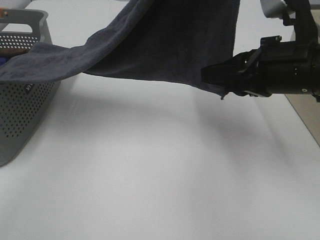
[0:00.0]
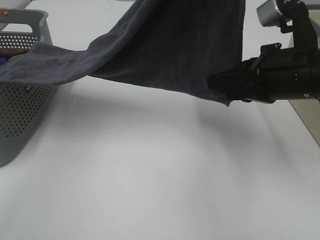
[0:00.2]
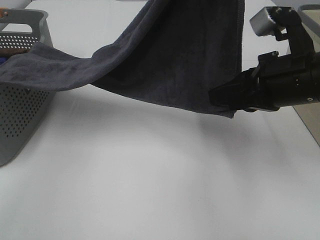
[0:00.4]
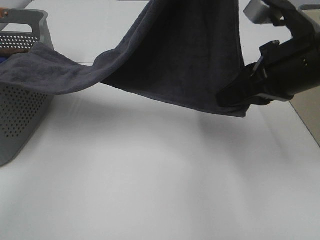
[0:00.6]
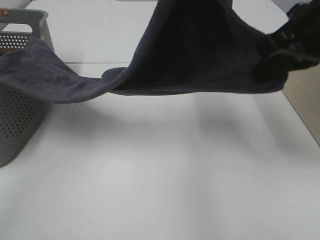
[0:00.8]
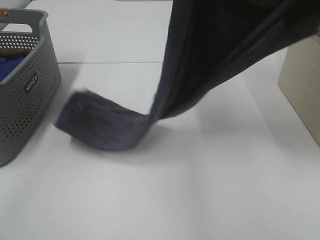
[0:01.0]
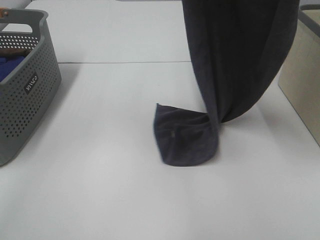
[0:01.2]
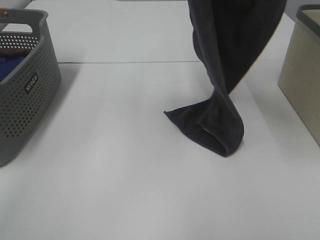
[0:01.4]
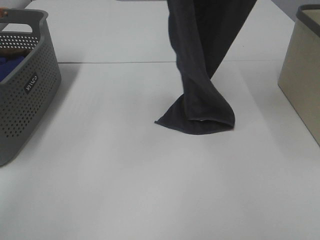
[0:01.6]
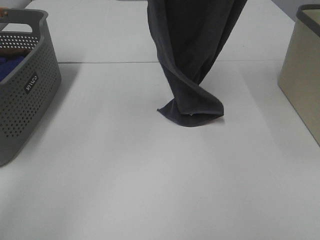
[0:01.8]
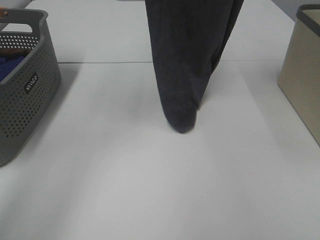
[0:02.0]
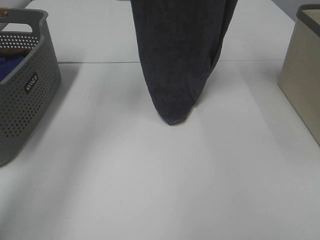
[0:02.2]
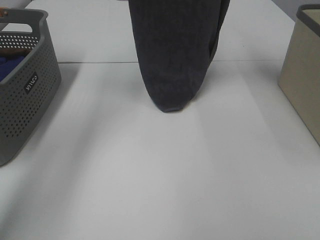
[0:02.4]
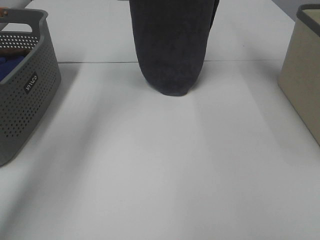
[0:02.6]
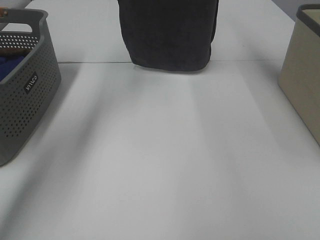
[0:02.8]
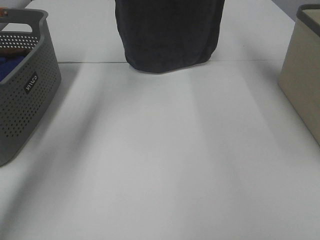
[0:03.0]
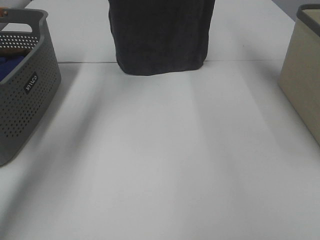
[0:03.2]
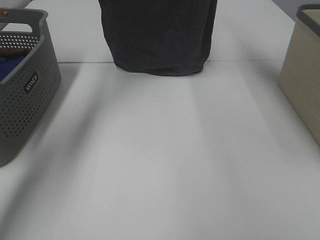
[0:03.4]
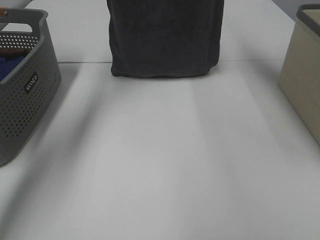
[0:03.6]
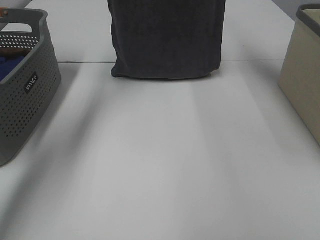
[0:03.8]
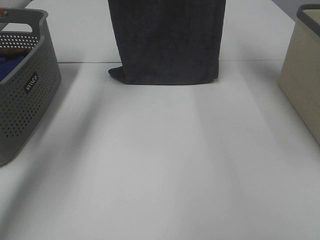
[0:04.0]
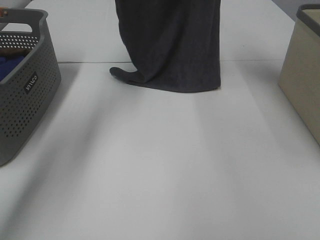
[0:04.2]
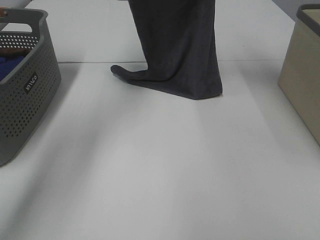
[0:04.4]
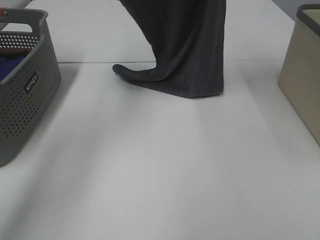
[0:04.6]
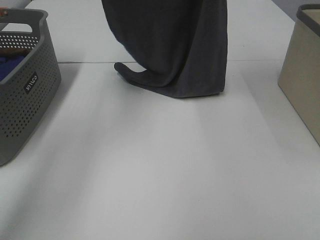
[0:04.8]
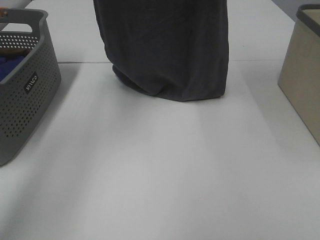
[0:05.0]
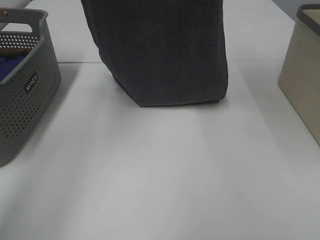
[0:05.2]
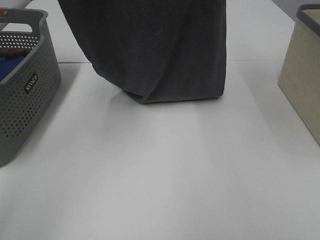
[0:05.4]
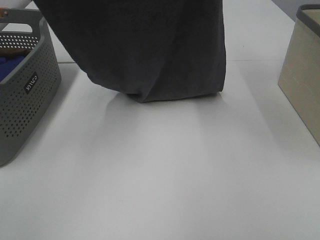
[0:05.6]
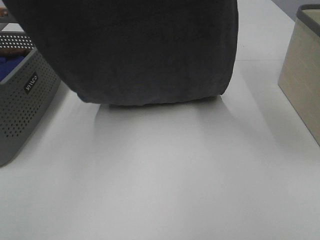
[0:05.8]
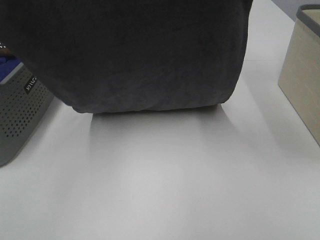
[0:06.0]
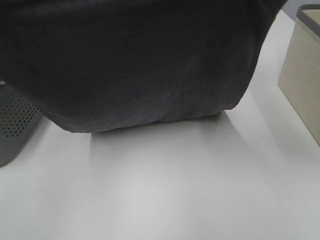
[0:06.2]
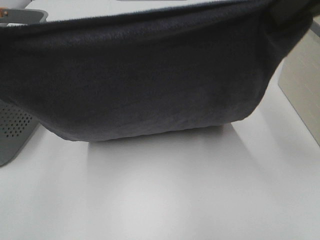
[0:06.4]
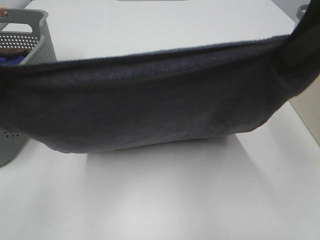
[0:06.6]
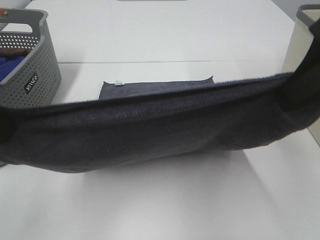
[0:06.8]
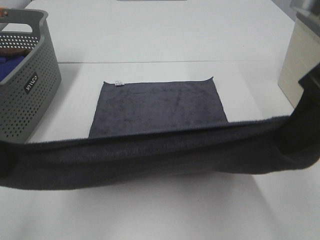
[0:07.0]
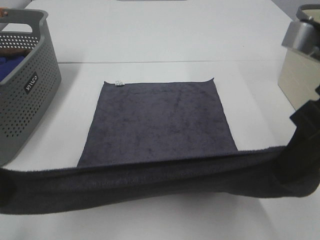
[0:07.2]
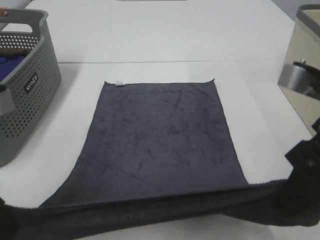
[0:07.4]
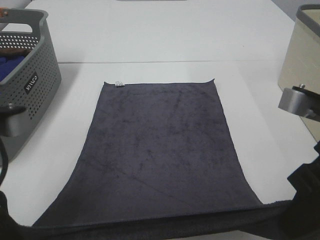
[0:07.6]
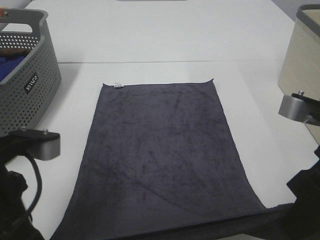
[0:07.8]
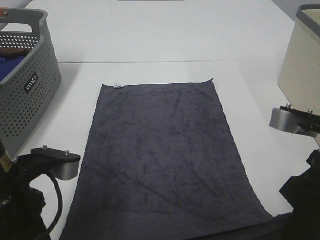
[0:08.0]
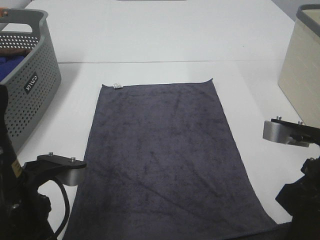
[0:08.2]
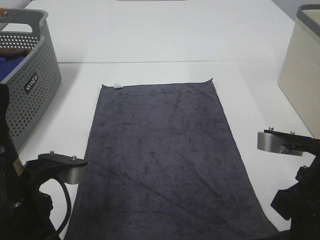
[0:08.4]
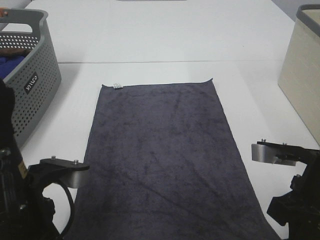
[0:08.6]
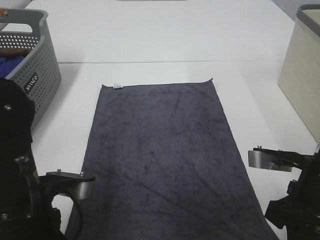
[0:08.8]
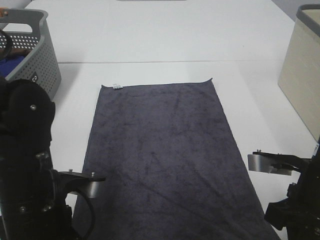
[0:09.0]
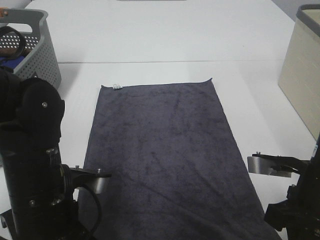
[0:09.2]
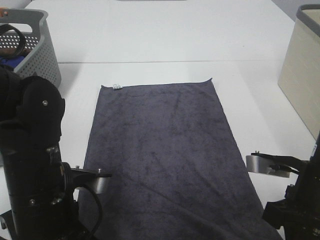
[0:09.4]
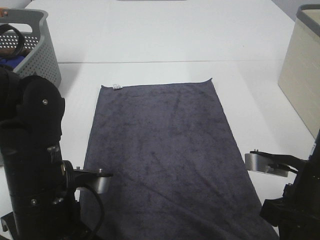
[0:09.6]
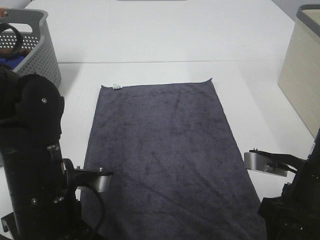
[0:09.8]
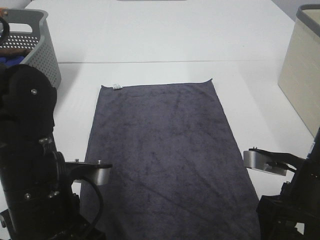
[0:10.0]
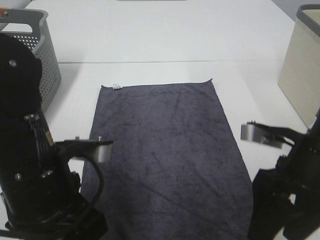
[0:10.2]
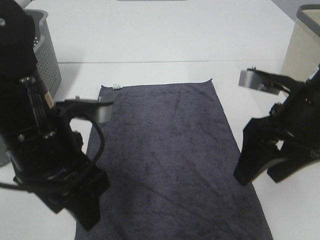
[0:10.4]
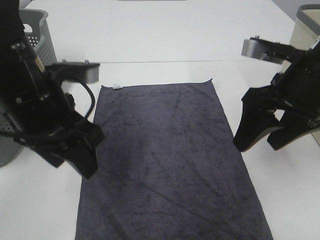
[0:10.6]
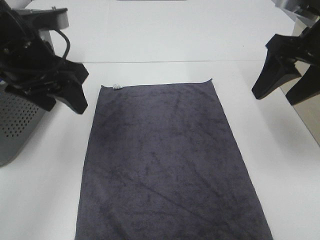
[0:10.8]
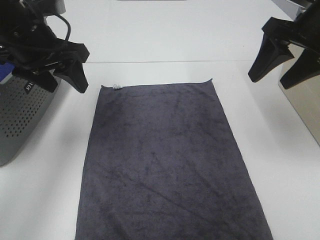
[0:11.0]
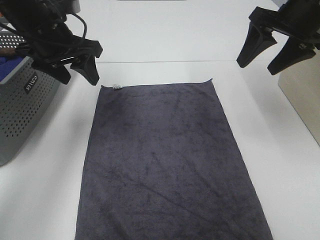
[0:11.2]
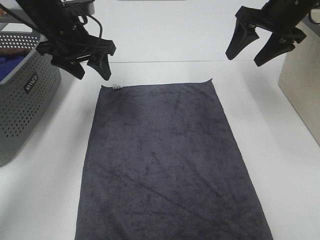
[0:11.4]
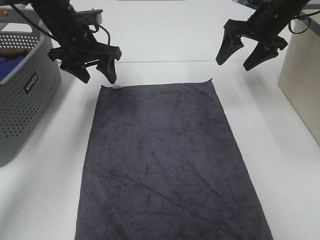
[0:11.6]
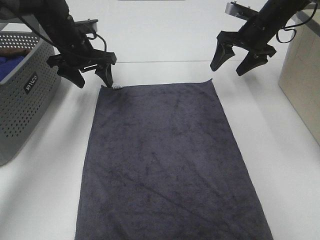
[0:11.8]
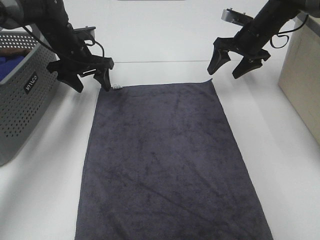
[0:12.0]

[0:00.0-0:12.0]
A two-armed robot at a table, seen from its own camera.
Task of the whole recording: Remove the towel and place it.
Step, 0.8 to 5.8 s: Left hand: spread the grey towel flat on the table.
Step, 0.8 to 5.8 s: Right hand: spread the grey towel flat on the table.
Step, 6.0 to 12.0 s: Left hand:adjust the gray towel.
Step, 6.0 to 12.0 s: Right hand:adjust the gray towel.
0.0 to 1.6 s: The left gripper is displaced forward and to the left by approximately 15 cm. Meanwhile the right gripper is displaced upward and forward by roughly 25 cm.
1.6 to 3.0 s: The left gripper moves forward and to the left, roughly 15 cm, while the right gripper shifts some 10 cm forward.
3.0 to 4.4 s: The left gripper is displaced downward by some 5 cm.
4.4 to 6.0 s: Both grippers travel together backward, some 25 cm.
6.0 to 7.6 s: The two grippers go some 20 cm downward and backward.
7.6 to 9.0 s: The right gripper goes some 10 cm downward; the left gripper goes approximately 10 cm downward and to the right.
9.0 to 10.4 s: The left gripper is displaced upward by roughly 10 cm, and opens, while the right gripper moves upward and forward, approximately 10 cm, and opens up.
10.4 to 12.0 s: Both grippers travel together forward, roughly 30 cm.

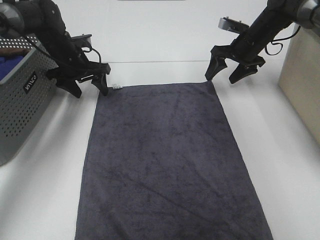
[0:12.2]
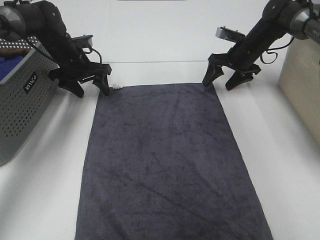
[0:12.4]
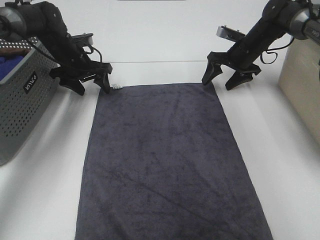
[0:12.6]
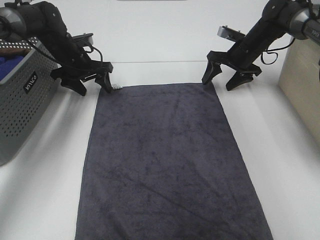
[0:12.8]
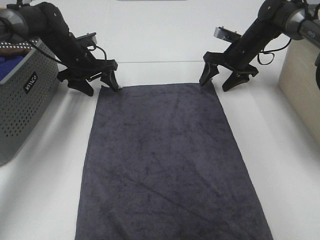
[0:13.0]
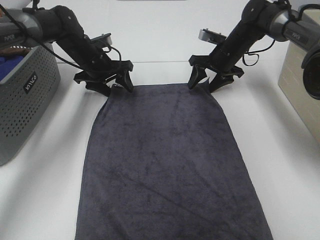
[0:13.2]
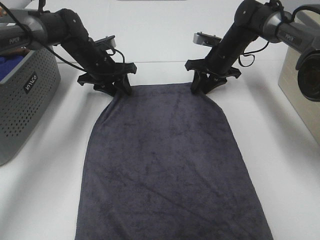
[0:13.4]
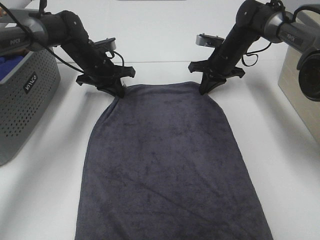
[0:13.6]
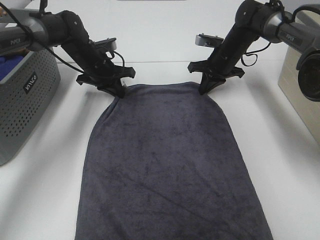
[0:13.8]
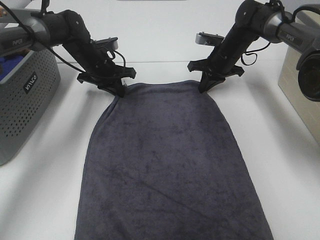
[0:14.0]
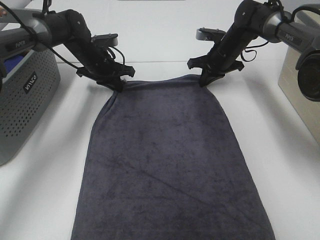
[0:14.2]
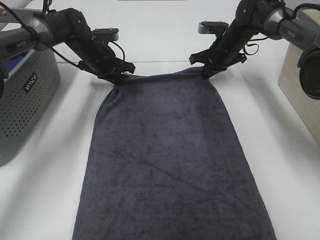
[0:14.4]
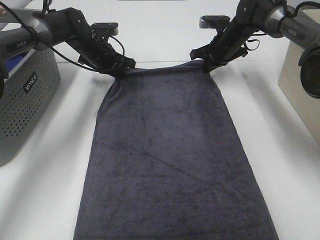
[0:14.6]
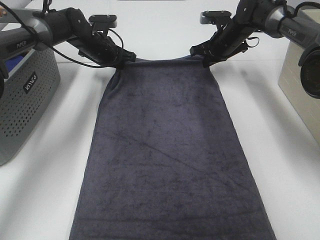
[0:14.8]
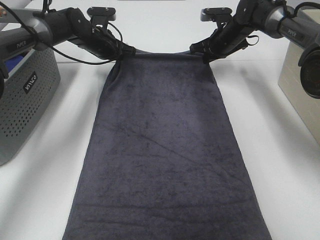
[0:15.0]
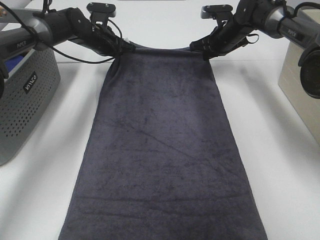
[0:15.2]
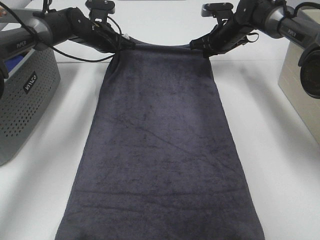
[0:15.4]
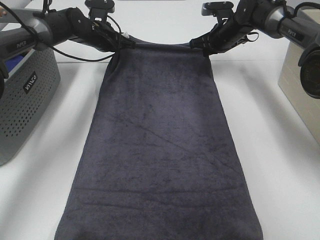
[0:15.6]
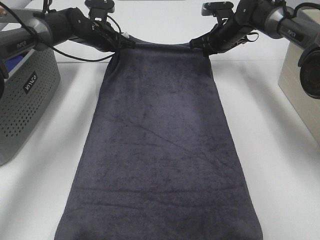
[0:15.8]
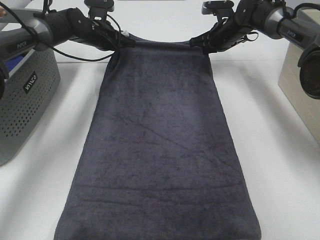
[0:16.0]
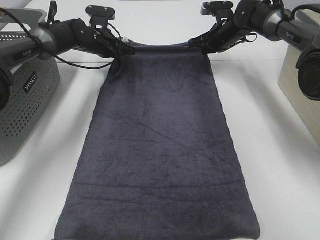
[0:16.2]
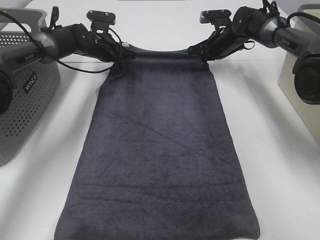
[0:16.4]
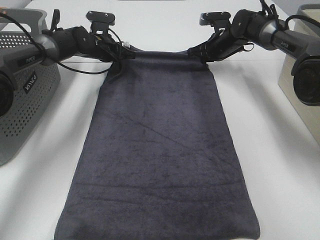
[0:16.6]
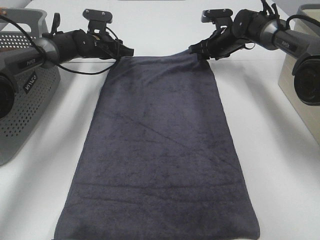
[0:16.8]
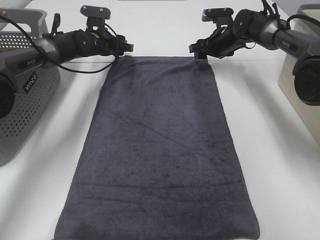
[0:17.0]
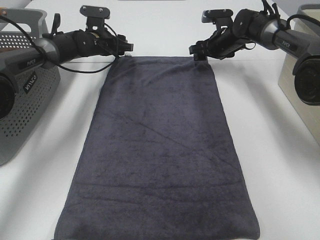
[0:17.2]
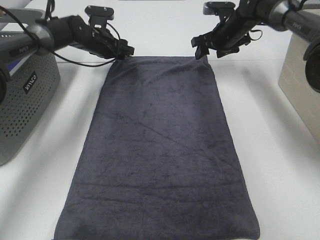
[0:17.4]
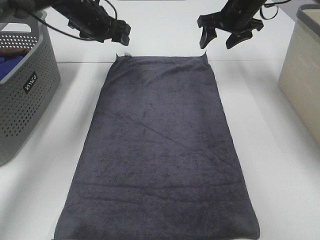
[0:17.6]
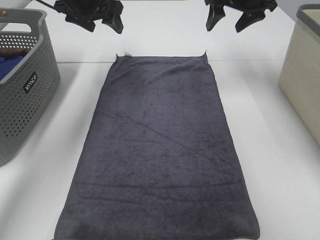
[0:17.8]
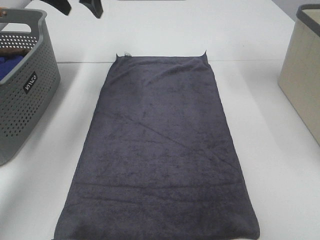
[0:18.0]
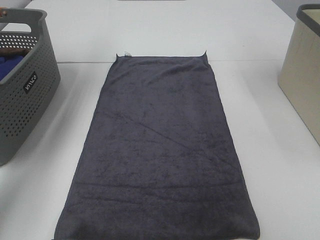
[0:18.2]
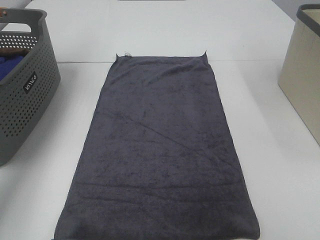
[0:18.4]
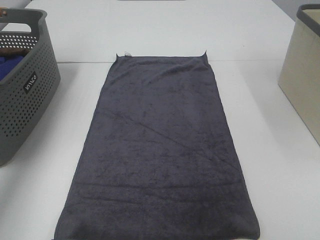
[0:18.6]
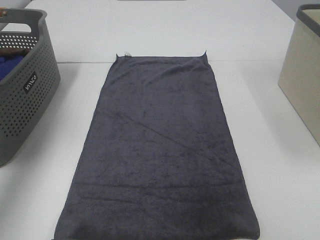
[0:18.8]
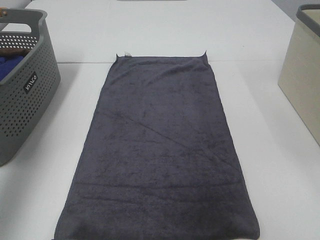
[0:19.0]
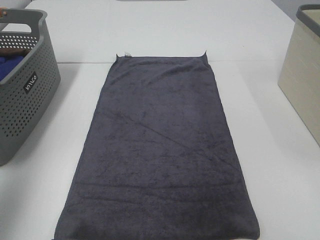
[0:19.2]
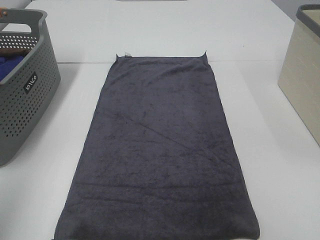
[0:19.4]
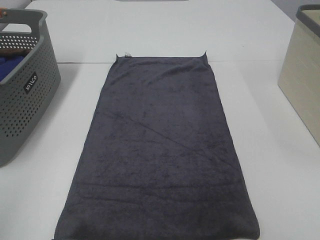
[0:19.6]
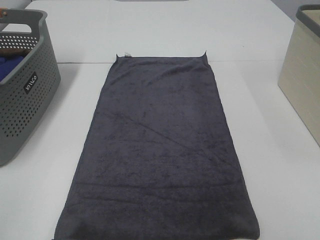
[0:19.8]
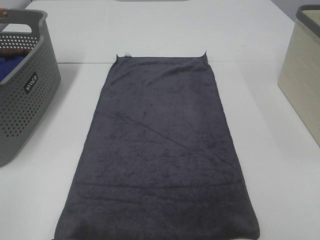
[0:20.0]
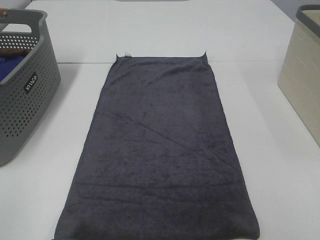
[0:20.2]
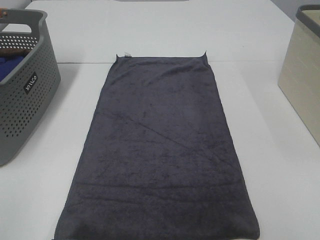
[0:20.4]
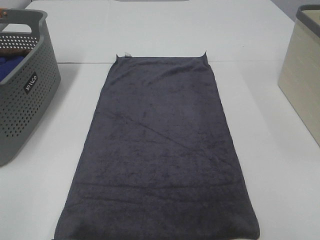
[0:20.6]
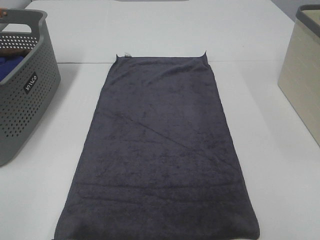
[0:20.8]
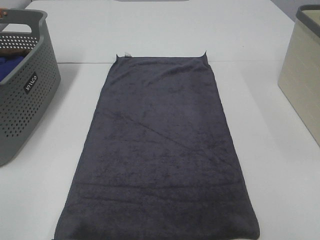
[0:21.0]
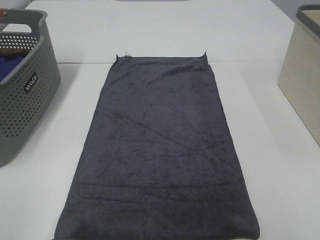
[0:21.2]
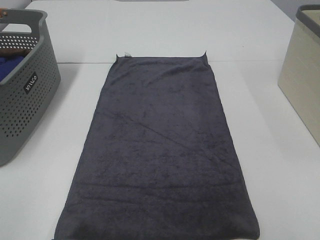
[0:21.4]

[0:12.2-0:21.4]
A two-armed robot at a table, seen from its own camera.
Task of the whole recording: Remove the towel and place it.
12.2 to 13.8 s: The left gripper heads to the right, covering roughly 5 cm, and closes; the right gripper moves to the left, roughly 5 cm, and closes its fingers.
13.8 to 15.2 s: The right gripper changes place by roughly 5 cm. The left gripper is displaced forward by roughly 5 cm.
15.2 to 16.8 s: The right gripper opens its fingers; the left gripper opens.
16.8 to 18.4 s: The left gripper shifts about 35 cm upward, to the left and backward; the right gripper moves upward and backward, about 35 cm.
18.4 to 19.8 s: The left gripper is displaced backward by approximately 50 cm.

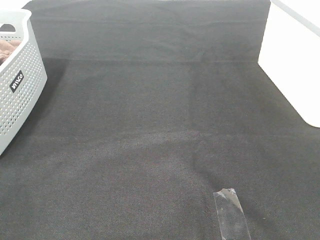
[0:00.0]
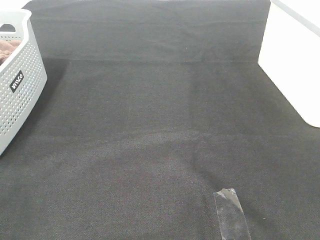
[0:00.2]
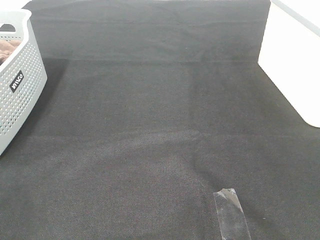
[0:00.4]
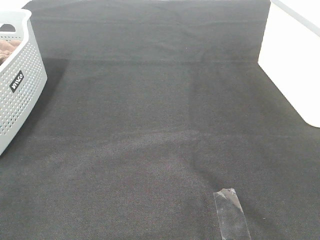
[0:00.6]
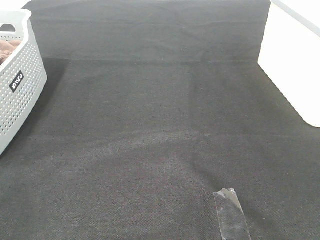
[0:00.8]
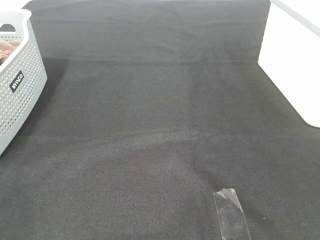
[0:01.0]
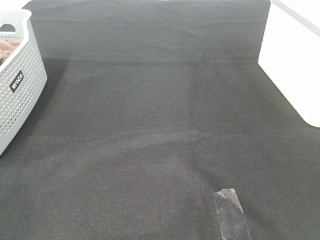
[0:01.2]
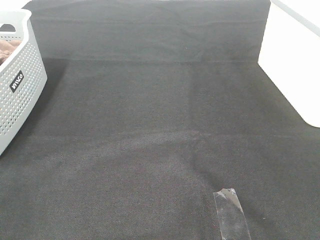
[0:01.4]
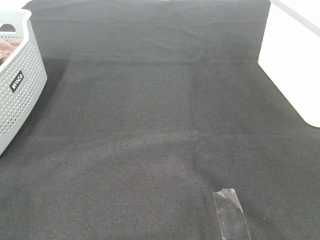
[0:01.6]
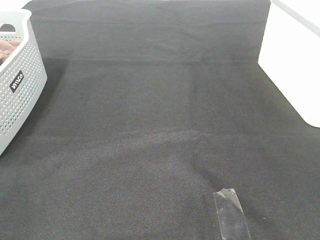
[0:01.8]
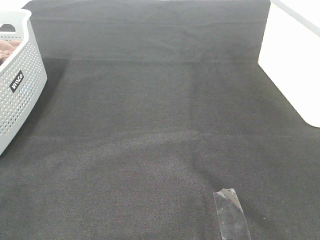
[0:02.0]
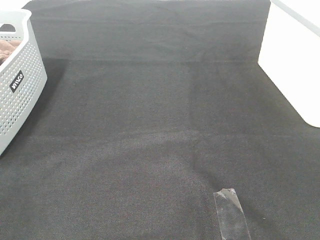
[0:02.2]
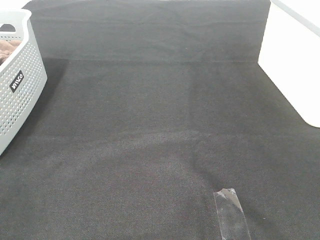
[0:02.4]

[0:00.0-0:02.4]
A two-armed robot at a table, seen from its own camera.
Task of the whole recording: Remove the towel and place it.
0.0 to 2.4 s: Both grippers stay put.
